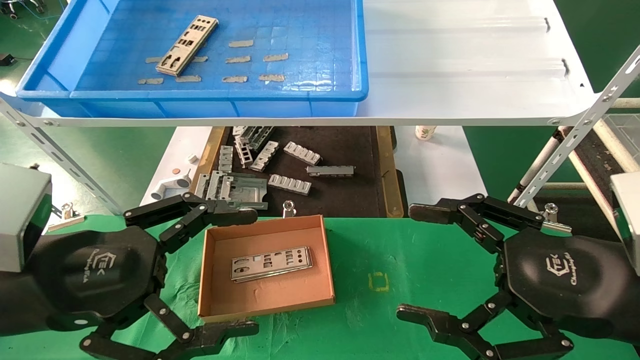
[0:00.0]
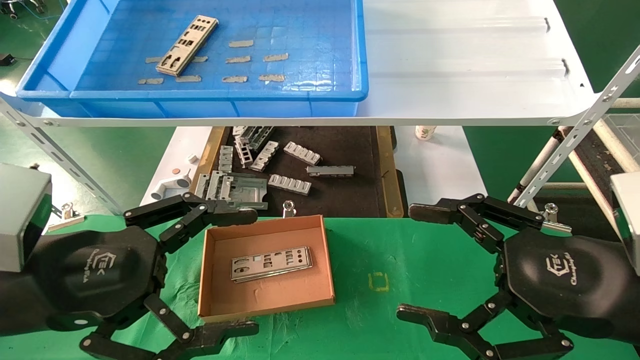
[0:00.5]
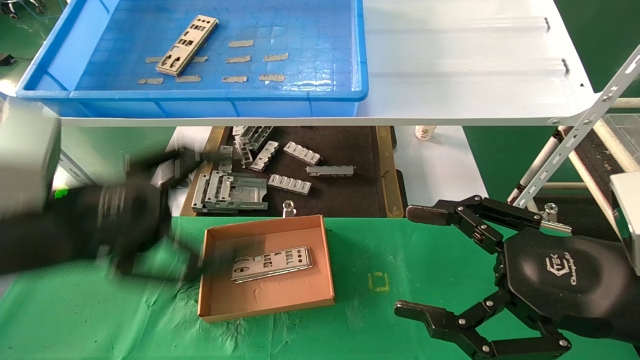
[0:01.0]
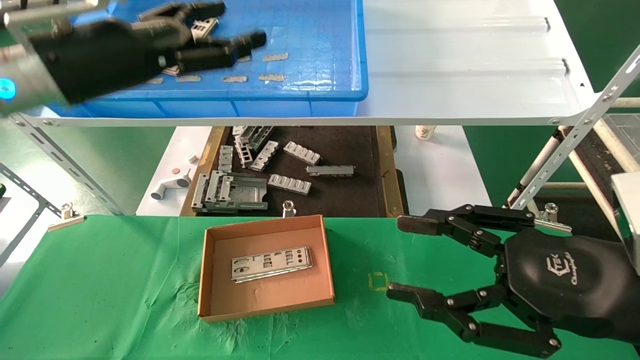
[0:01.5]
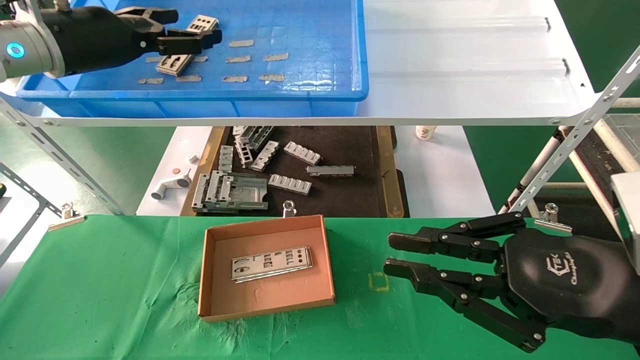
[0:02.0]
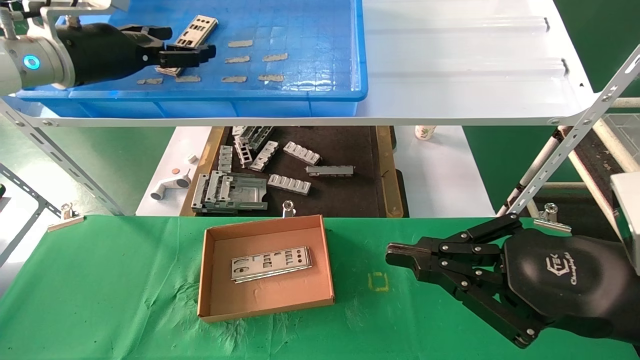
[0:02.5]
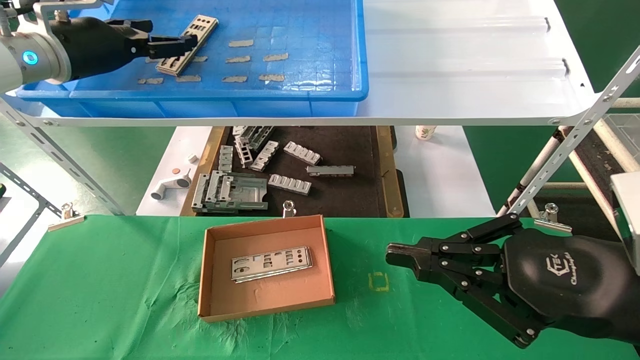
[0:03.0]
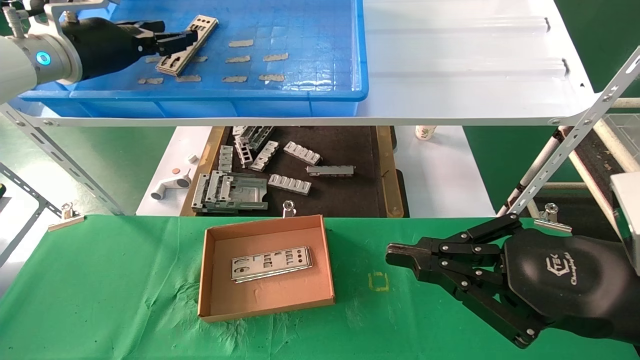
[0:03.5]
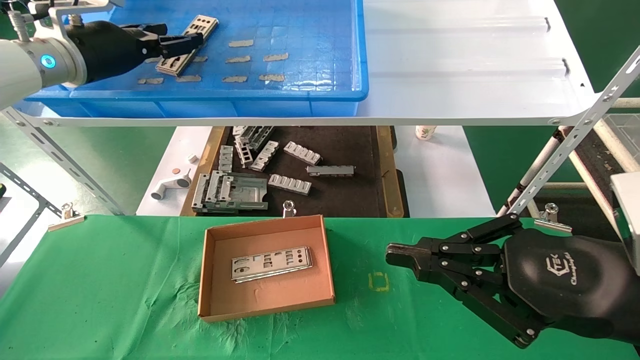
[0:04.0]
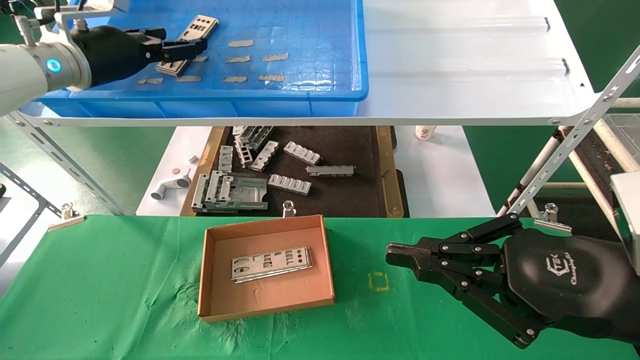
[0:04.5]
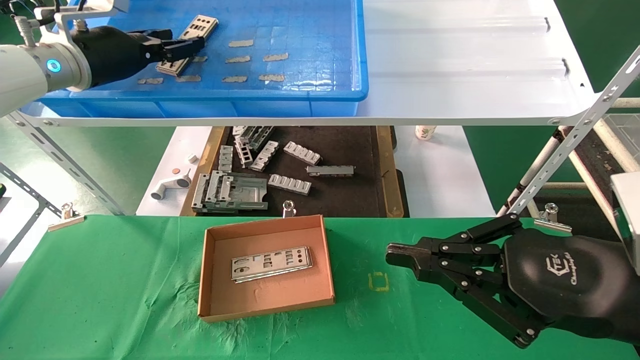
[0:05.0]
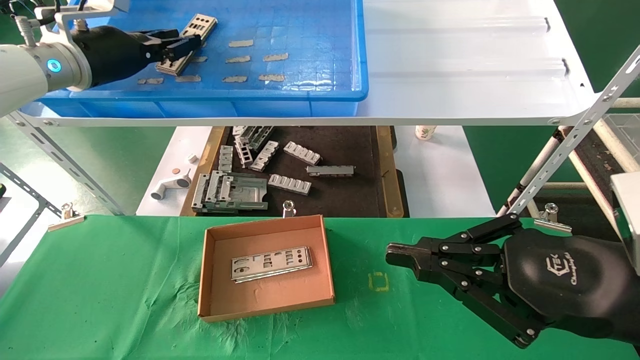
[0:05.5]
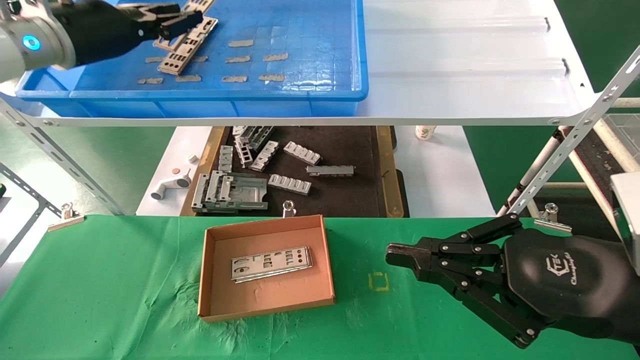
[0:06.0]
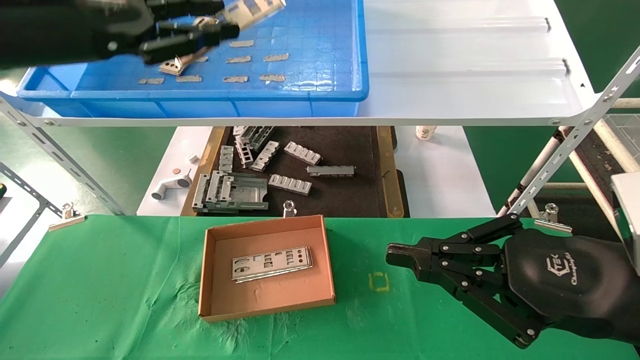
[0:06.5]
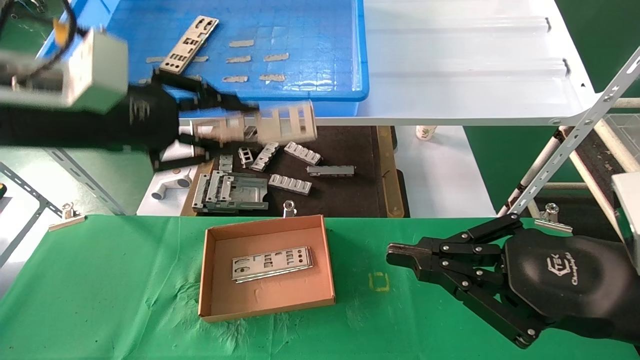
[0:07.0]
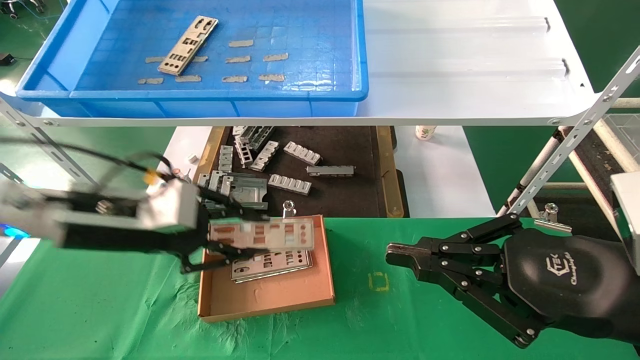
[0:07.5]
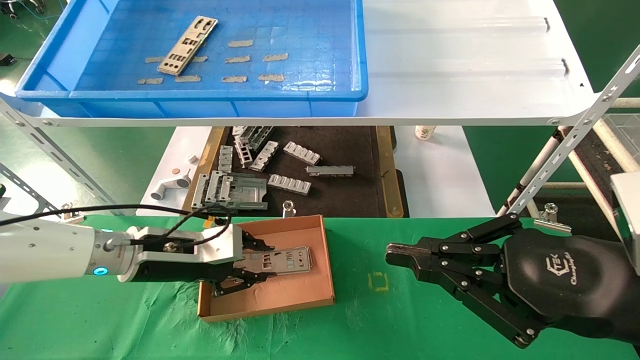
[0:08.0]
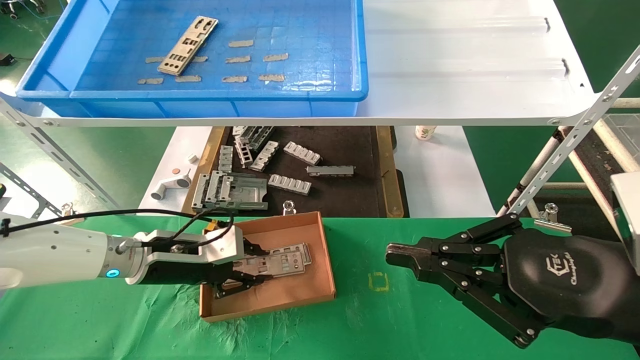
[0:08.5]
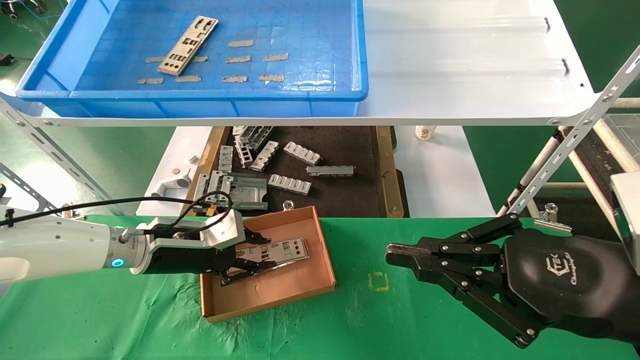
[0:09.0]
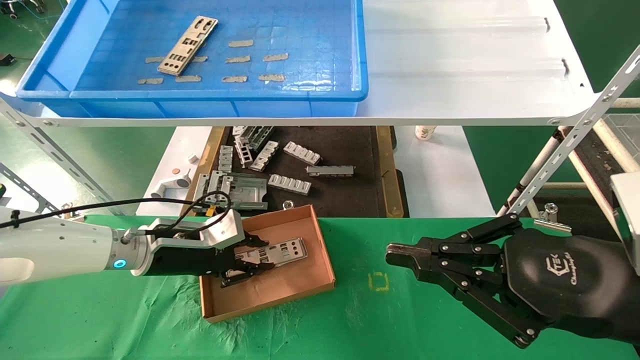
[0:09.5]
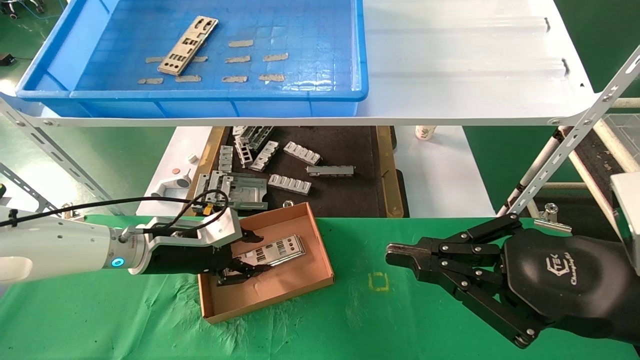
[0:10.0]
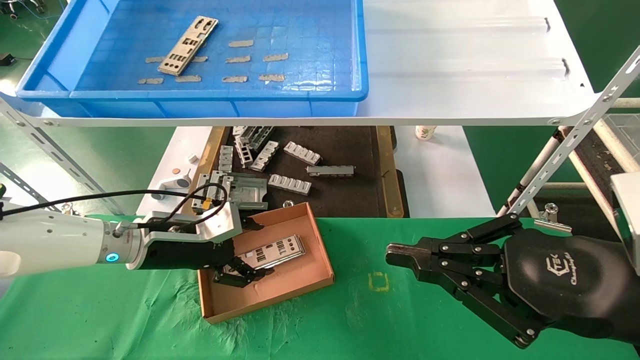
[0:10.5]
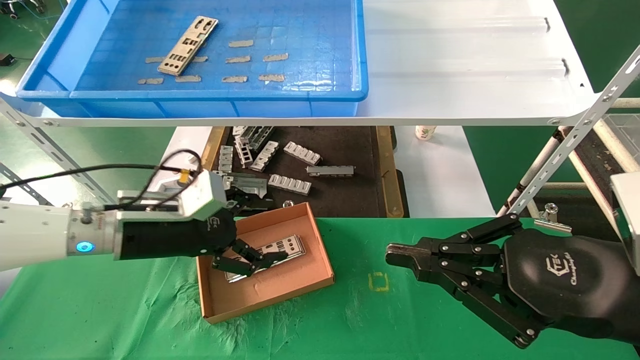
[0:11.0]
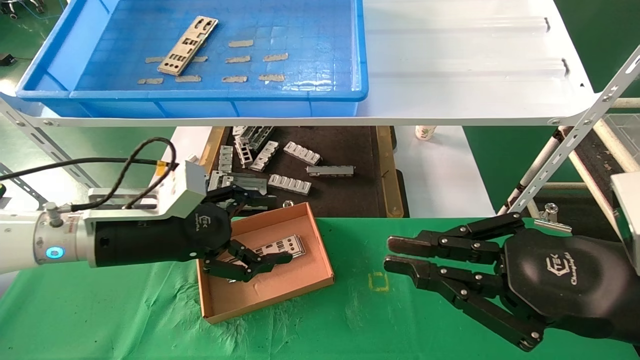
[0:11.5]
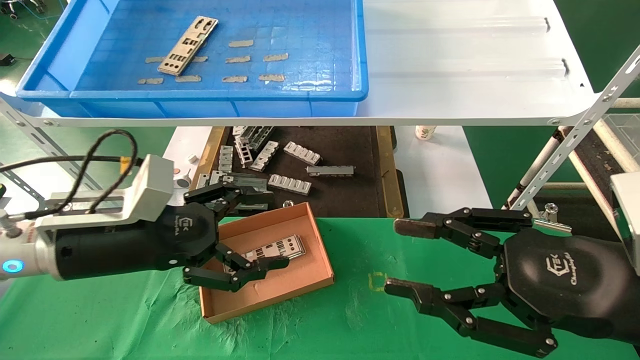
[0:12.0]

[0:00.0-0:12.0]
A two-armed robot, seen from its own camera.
Task of the whole recording: pick up the parts on the tray and put them in the cardboard box.
Step, 0:01.5 to 0:05.5: Pick up the IO bracket from the container box.
Step, 0:06.0 to 0:10.0: Place the IO bracket into the ingredient slot.
0:00.0 to 0:02.0: The left gripper goes some 25 cm forward and upward; the right gripper closes.
0:02.0 to 0:04.0: The left gripper closes its fingers.
0:04.0 to 0:06.0: The left gripper closes.
0:06.0 to 0:08.0: The left gripper is displaced downward by some 25 cm.
0:08.0 to 0:10.0: The grippers move only a little.
0:10.0 to 0:12.0: The right gripper opens up. The left gripper goes roughly 15 cm backward and upward, and opens its fingers.

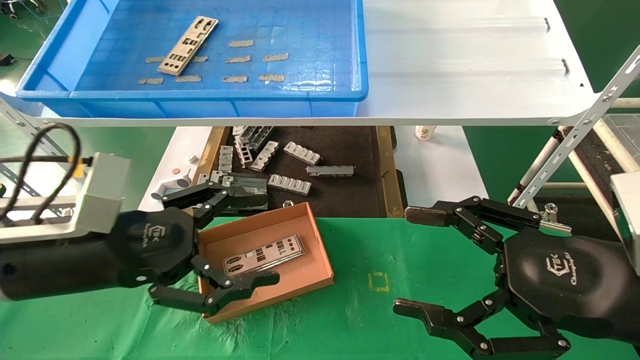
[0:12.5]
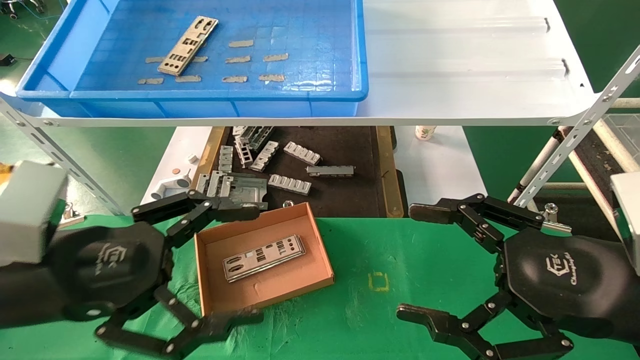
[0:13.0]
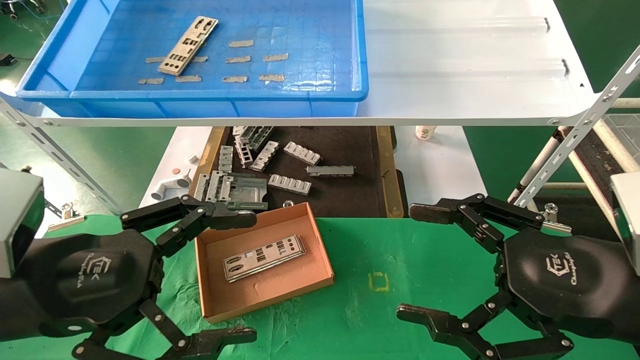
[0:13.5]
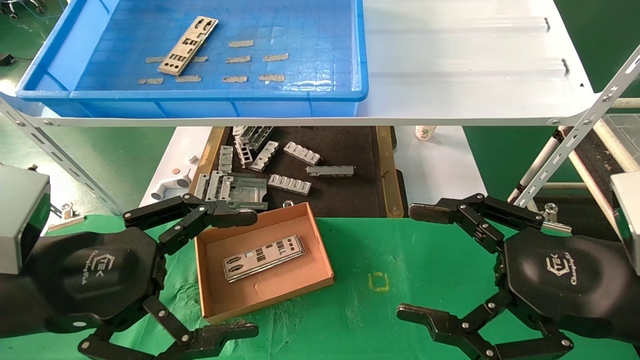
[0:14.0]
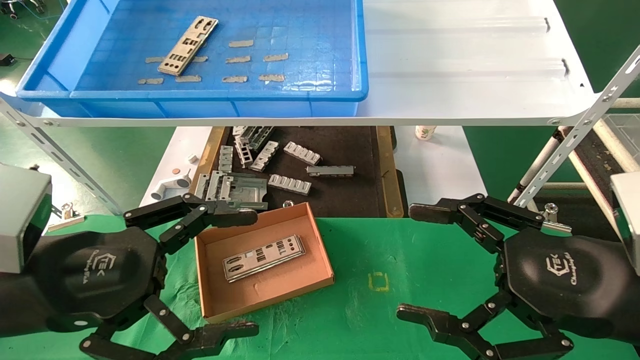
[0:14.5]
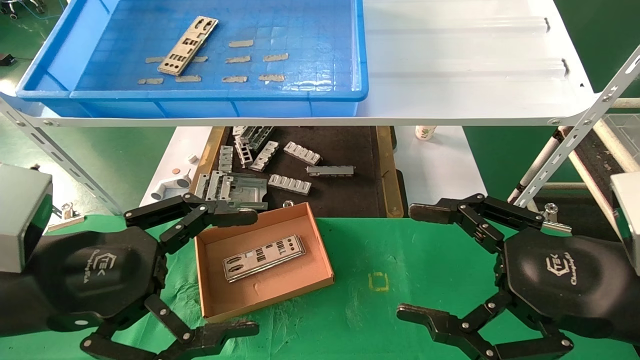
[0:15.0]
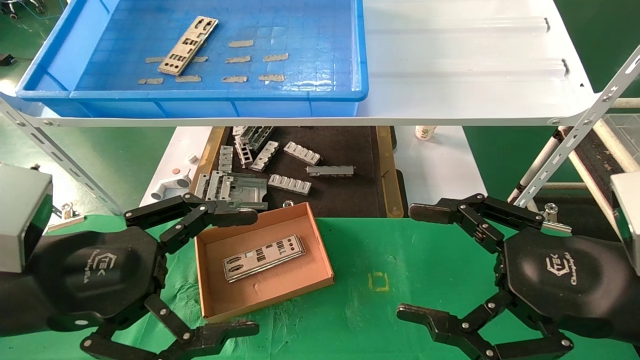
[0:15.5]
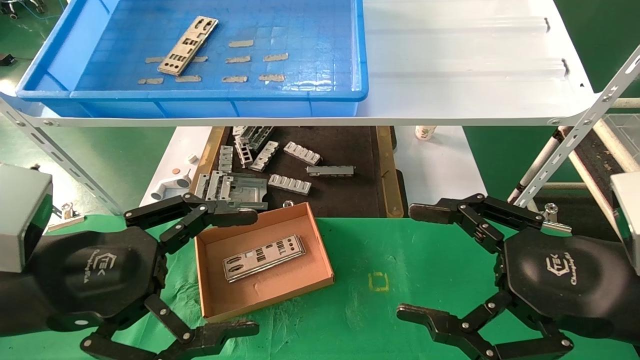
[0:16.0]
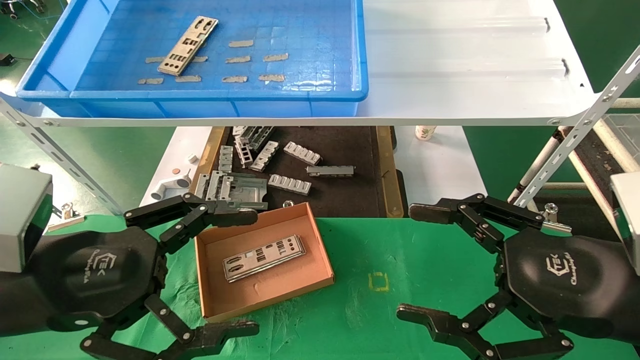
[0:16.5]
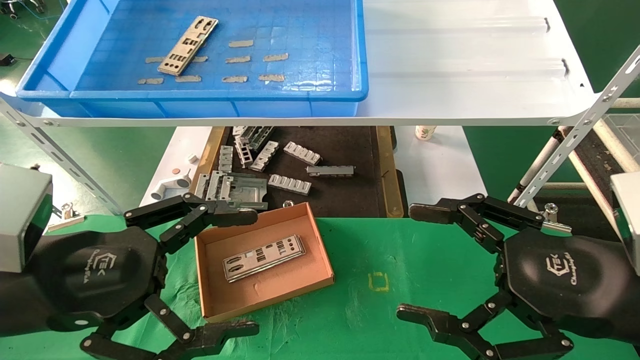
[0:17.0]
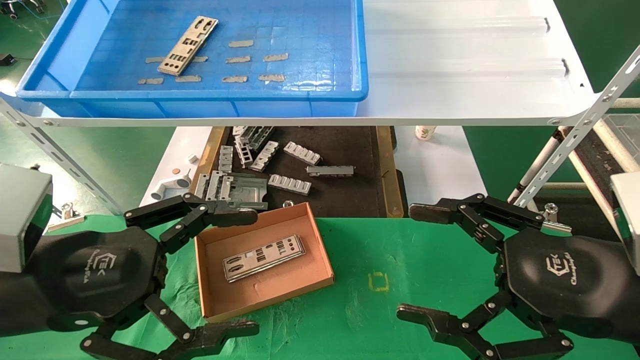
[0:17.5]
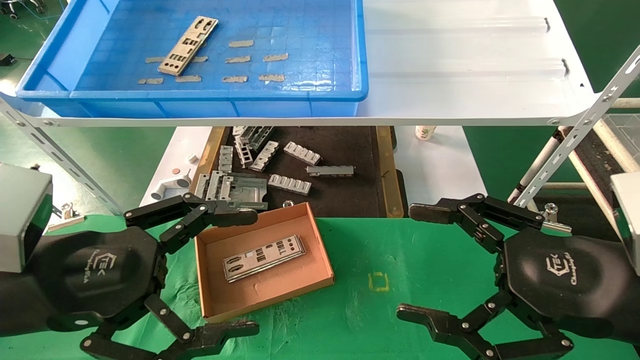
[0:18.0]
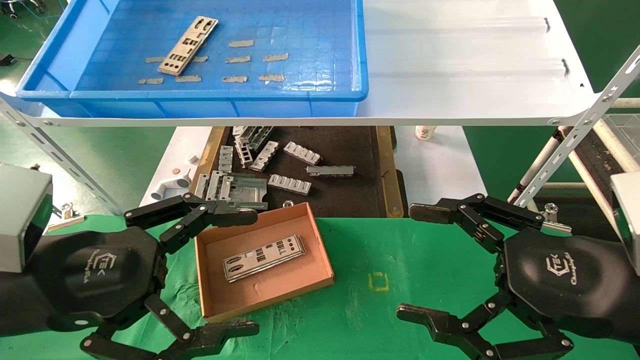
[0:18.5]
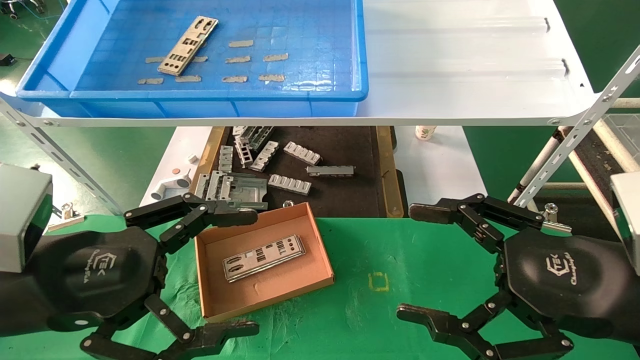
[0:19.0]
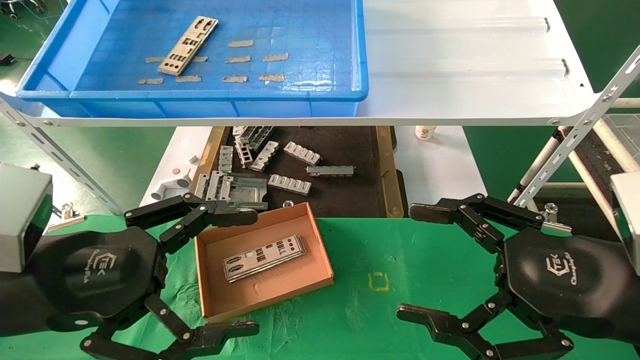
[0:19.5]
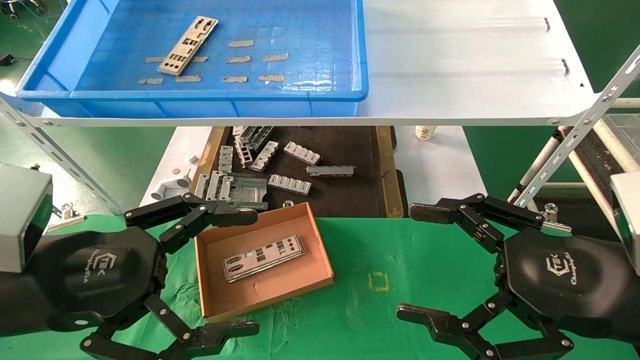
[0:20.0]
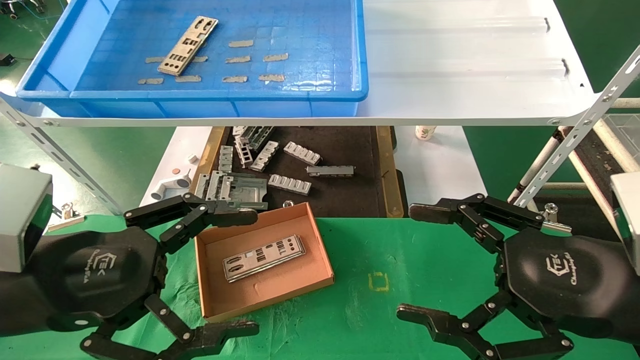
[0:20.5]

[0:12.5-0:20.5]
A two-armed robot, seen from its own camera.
Task of the whole recording: pick up the parts on the tray and put them in the cardboard box.
0:12.5 to 0:14.5: The left gripper shifts about 5 cm backward.
0:14.5 to 0:20.5: Both grippers stay about where they are.
